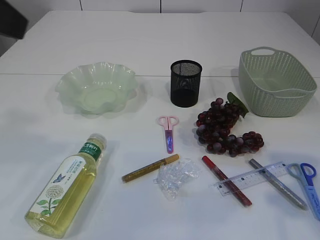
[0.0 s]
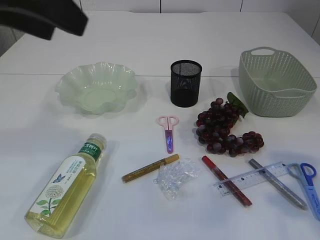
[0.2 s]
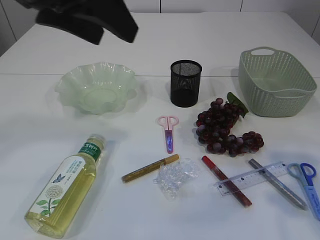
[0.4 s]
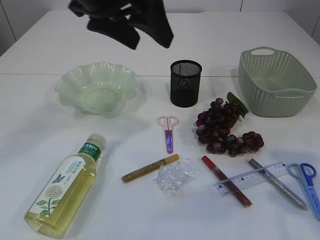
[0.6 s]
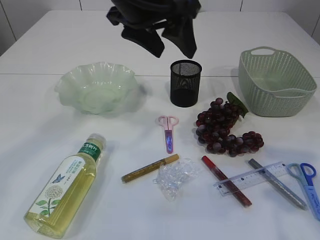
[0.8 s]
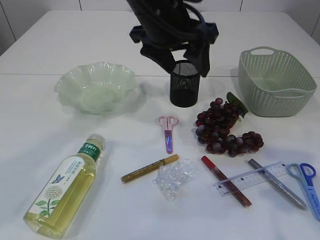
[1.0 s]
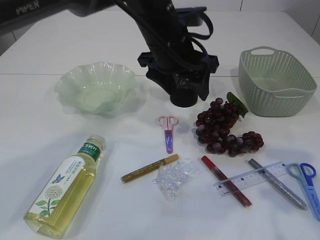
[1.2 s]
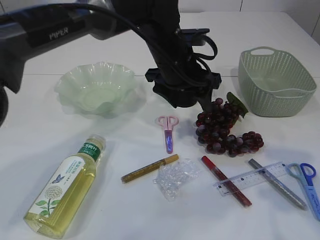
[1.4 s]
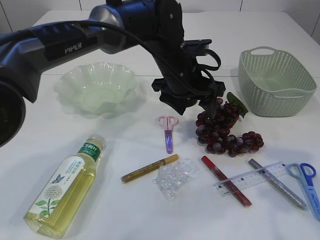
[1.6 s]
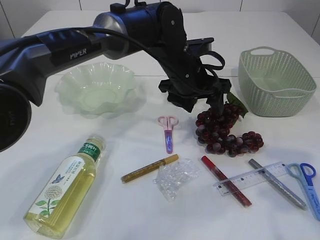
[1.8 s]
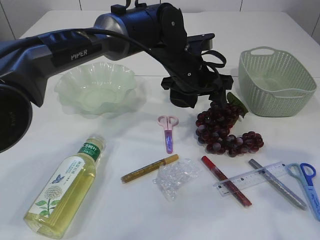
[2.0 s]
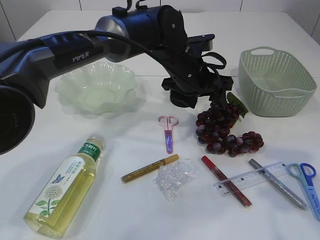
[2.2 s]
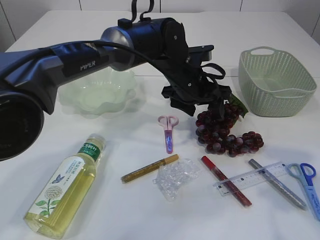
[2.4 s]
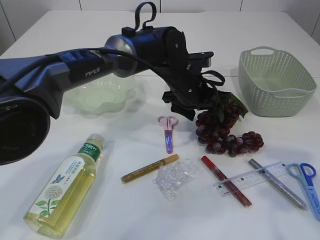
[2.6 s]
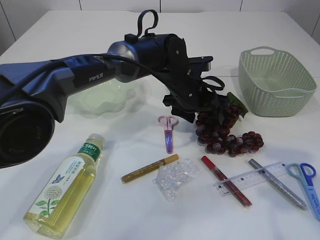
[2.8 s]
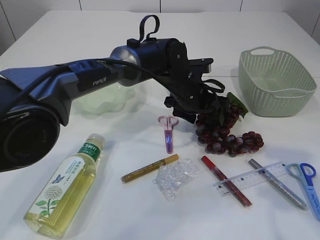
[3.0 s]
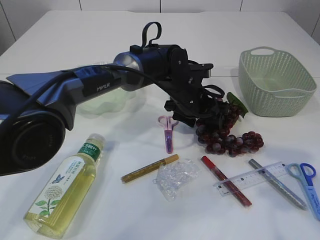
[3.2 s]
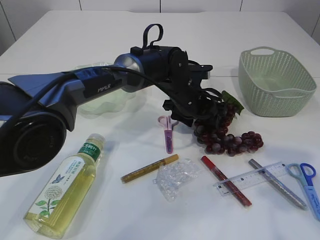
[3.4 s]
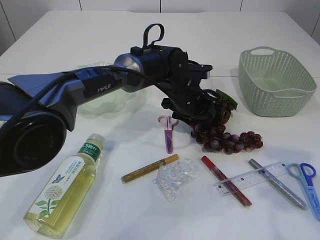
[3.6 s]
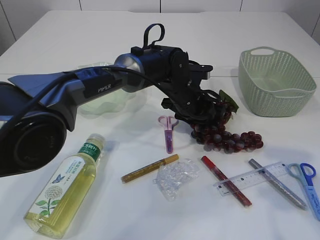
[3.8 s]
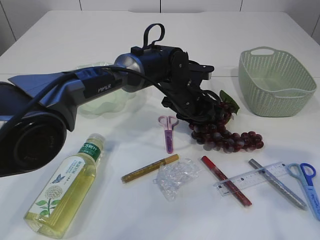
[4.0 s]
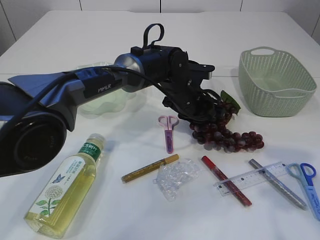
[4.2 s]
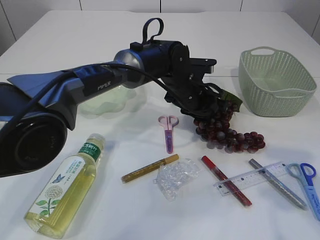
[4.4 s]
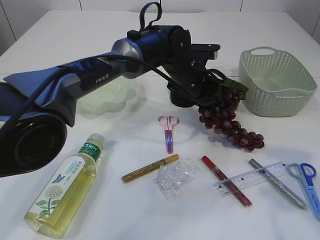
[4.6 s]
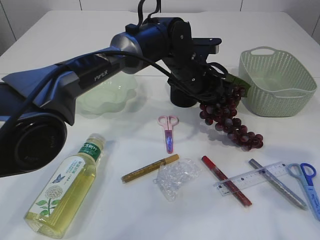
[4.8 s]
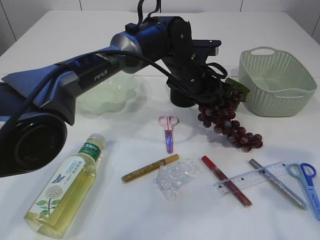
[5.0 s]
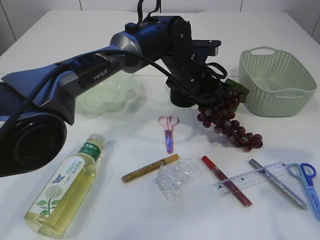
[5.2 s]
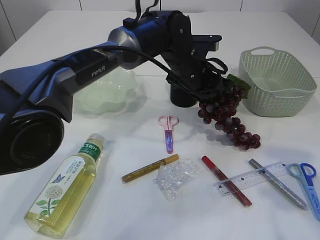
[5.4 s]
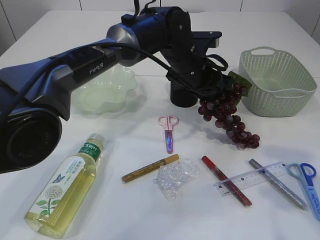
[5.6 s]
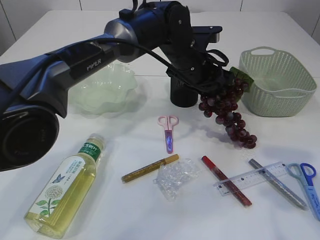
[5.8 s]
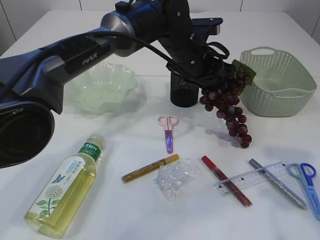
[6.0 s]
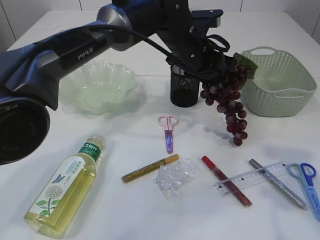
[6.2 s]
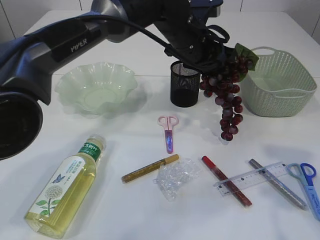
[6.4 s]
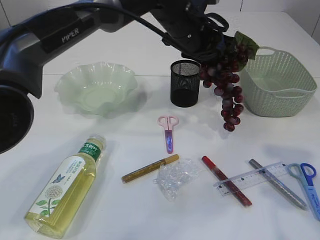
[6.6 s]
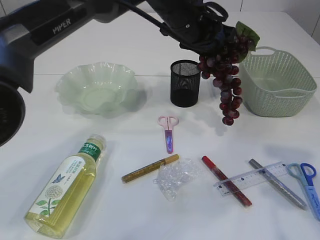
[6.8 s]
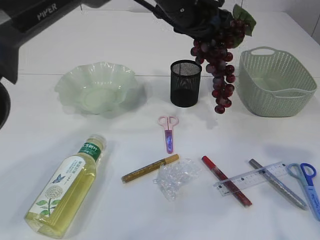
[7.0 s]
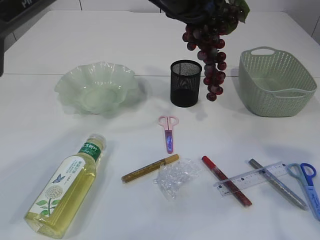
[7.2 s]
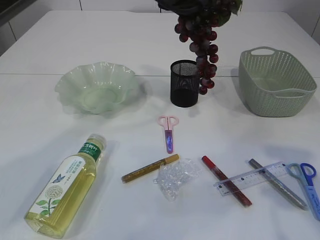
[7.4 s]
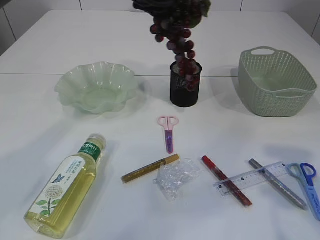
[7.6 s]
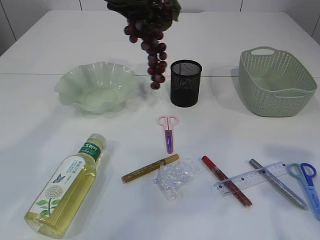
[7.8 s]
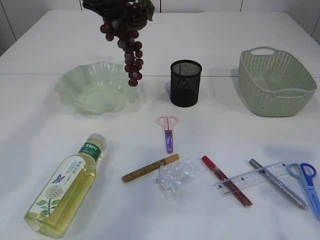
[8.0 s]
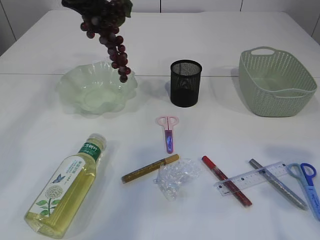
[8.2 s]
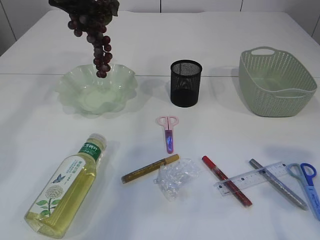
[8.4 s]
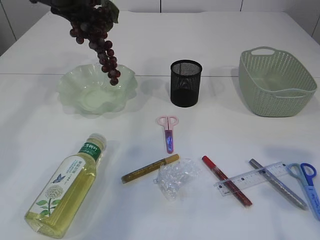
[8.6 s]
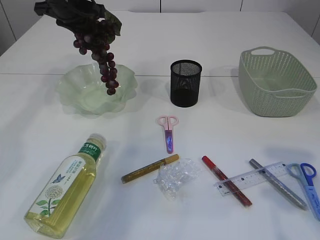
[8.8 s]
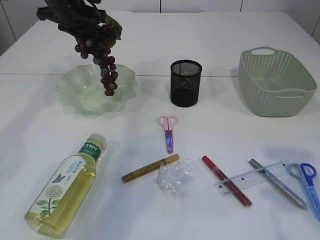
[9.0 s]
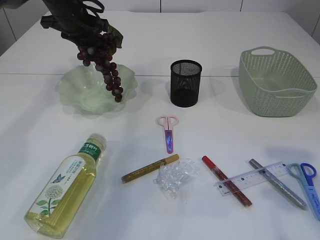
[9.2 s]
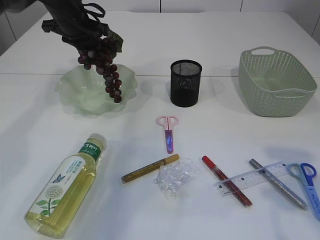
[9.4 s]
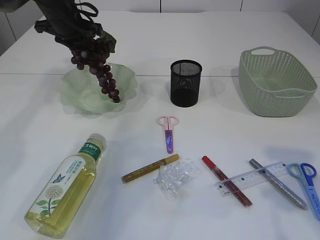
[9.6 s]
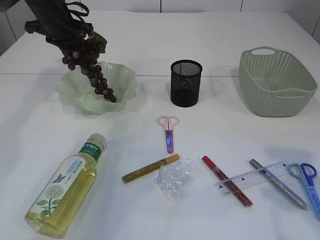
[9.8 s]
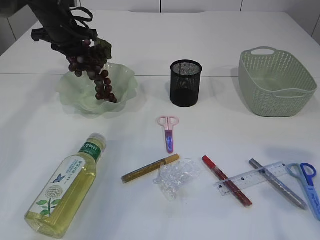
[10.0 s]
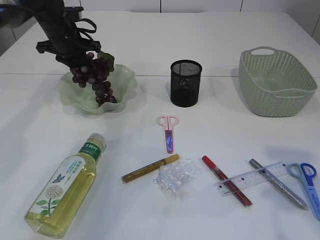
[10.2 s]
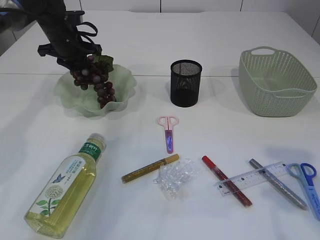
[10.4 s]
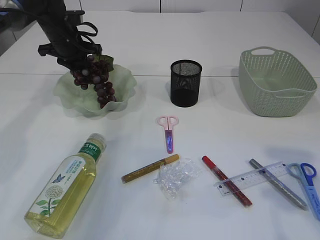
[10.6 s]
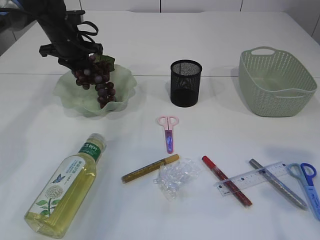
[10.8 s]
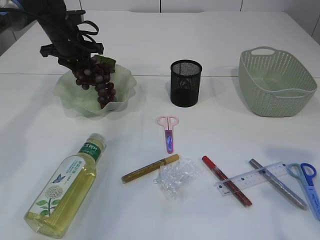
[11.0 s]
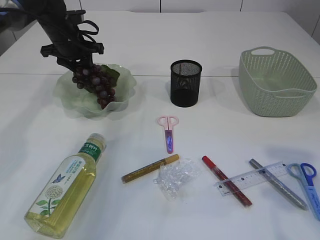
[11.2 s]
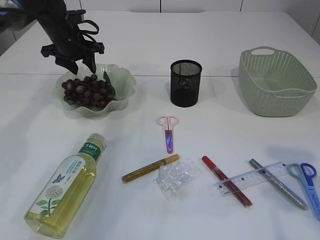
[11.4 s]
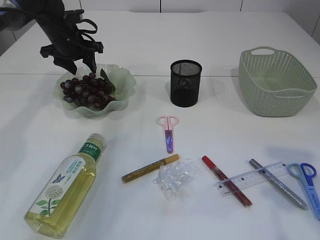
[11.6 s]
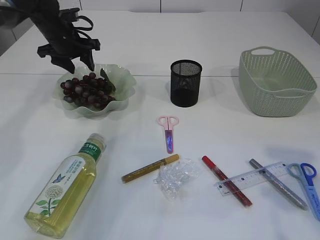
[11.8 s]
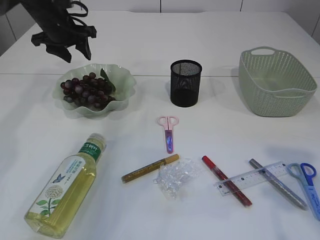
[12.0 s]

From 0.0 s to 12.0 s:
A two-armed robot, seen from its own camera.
Step, from 0.0 s to 6.8 s: Pick up the grapes.
From 0.0 s to 1.6 s: The left gripper moves to the right, downward and forward, roughly 40 cm.
From 1.6 s to 3.0 s: The left gripper travels downward by some 5 cm.
From 3.0 s to 4.4 s: The left gripper closes up.
From 4.4 s to 6.0 s: The left gripper moves upward, some 10 cm.
From 6.0 s to 7.6 s: The left gripper is displaced upward and to the left by approximately 15 cm.
From 7.6 s to 9.0 s: The left gripper shifts approximately 20 cm to the left and forward.
From 9.0 s to 10.4 s: The left gripper moves downward, approximately 10 cm.
From 10.4 s to 12.0 s: The left gripper opens its fingers.

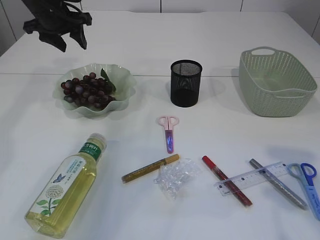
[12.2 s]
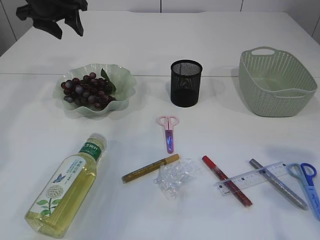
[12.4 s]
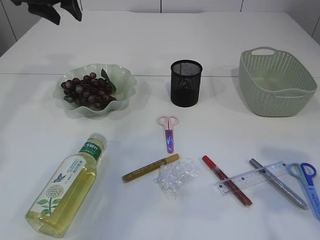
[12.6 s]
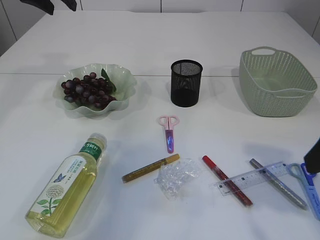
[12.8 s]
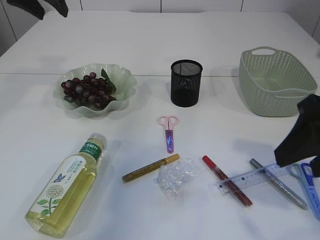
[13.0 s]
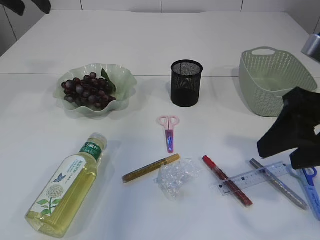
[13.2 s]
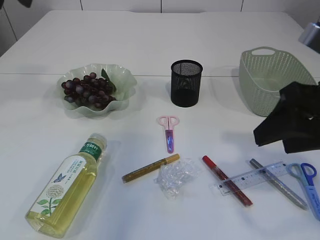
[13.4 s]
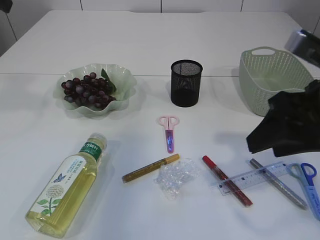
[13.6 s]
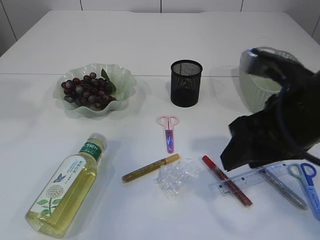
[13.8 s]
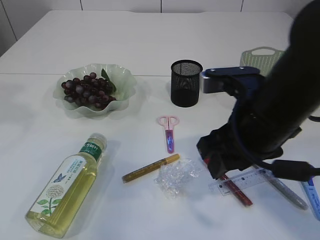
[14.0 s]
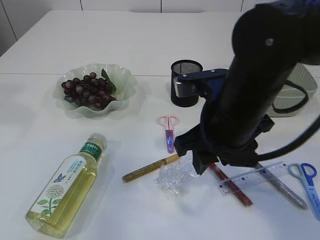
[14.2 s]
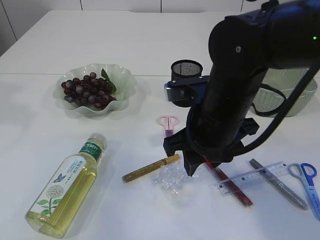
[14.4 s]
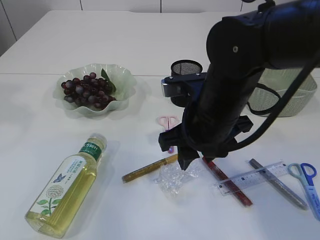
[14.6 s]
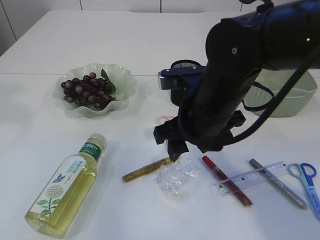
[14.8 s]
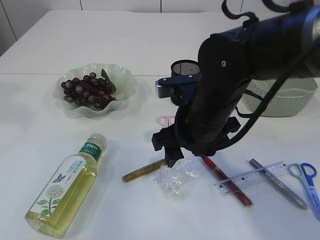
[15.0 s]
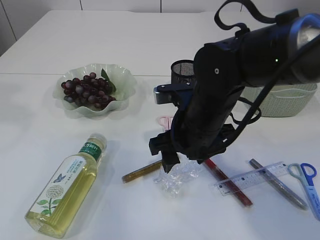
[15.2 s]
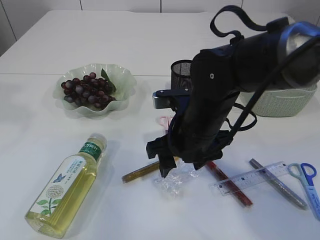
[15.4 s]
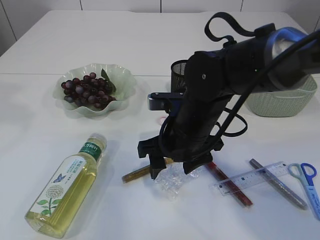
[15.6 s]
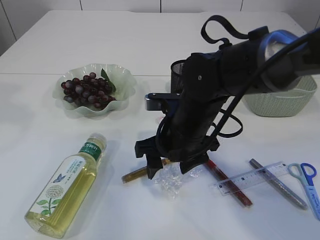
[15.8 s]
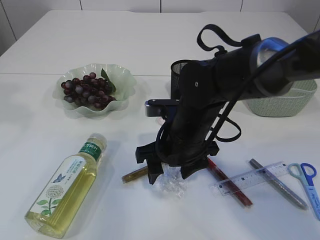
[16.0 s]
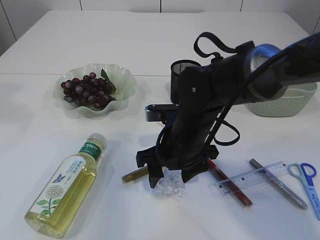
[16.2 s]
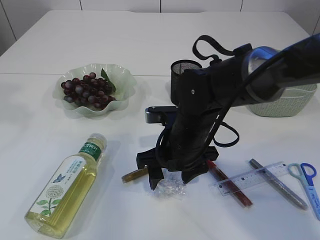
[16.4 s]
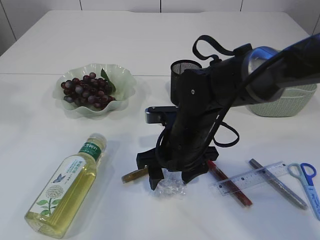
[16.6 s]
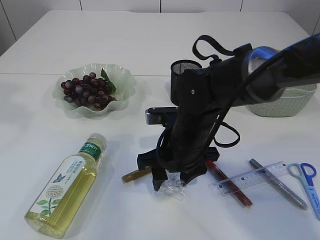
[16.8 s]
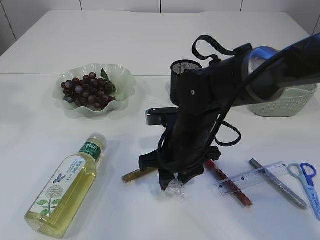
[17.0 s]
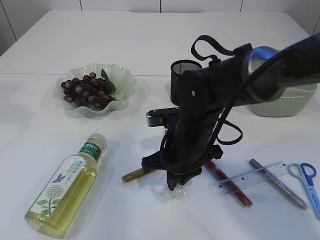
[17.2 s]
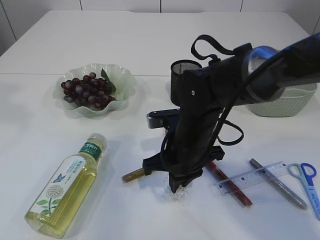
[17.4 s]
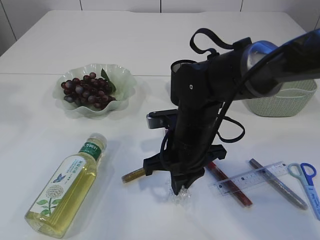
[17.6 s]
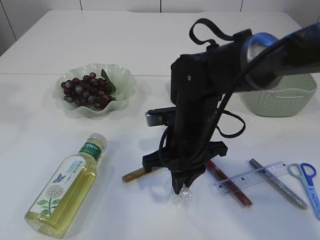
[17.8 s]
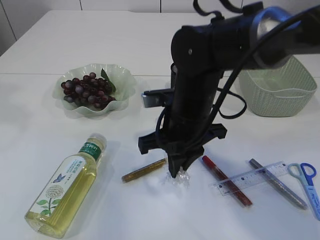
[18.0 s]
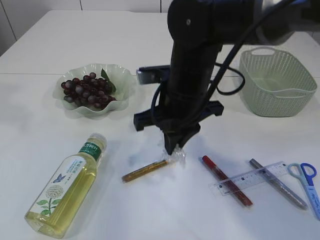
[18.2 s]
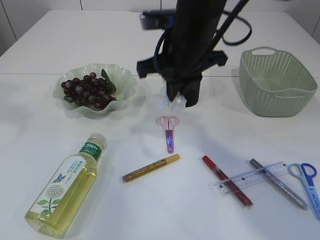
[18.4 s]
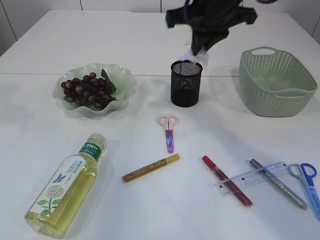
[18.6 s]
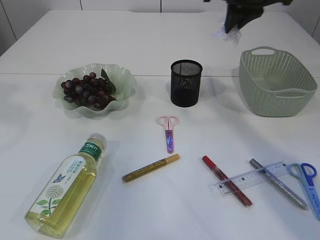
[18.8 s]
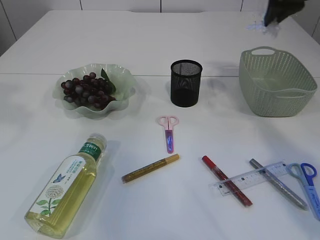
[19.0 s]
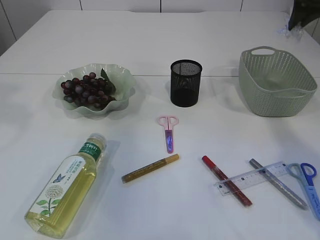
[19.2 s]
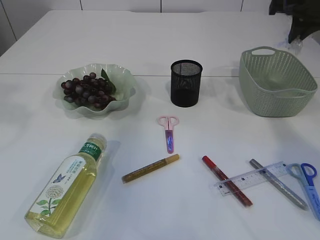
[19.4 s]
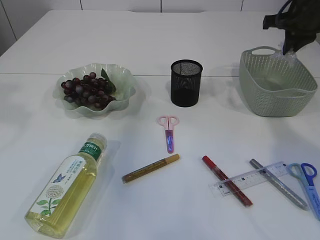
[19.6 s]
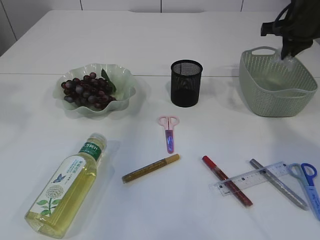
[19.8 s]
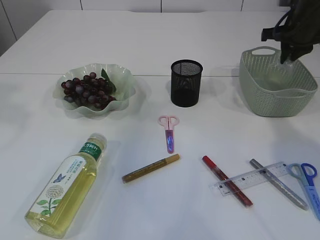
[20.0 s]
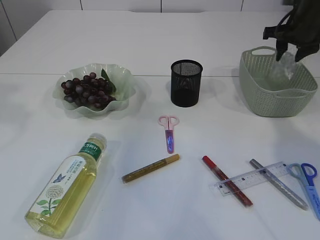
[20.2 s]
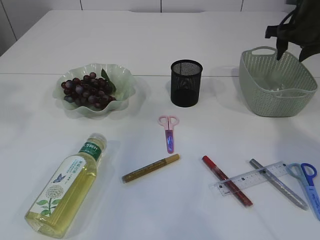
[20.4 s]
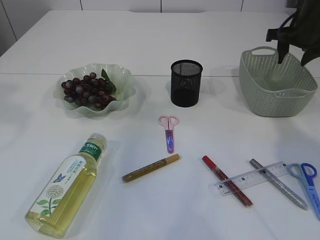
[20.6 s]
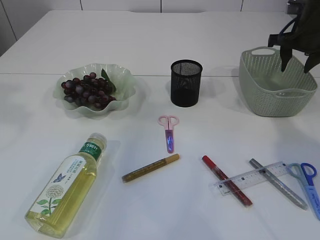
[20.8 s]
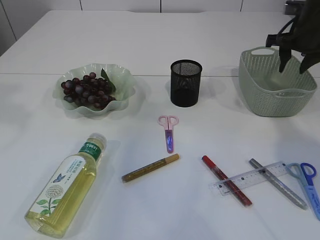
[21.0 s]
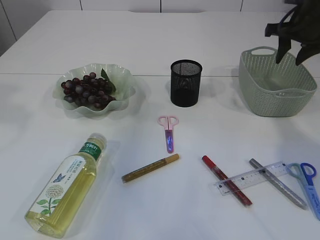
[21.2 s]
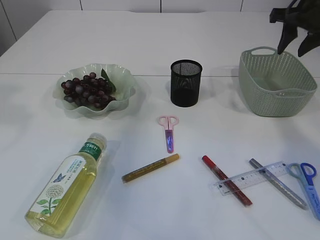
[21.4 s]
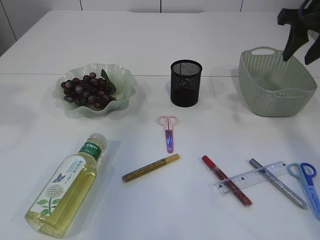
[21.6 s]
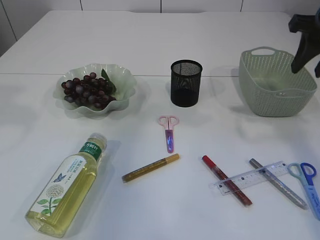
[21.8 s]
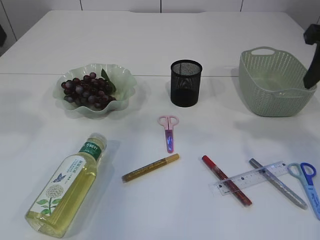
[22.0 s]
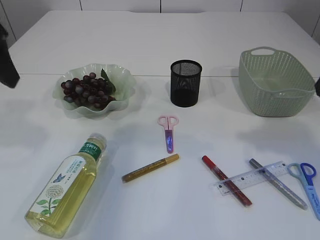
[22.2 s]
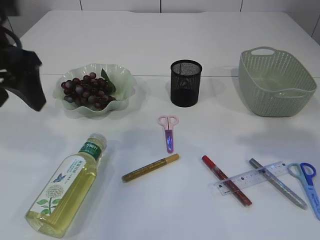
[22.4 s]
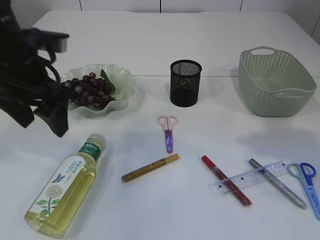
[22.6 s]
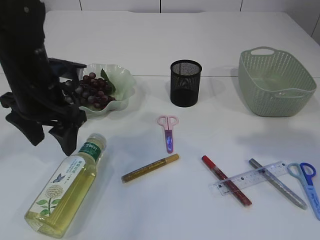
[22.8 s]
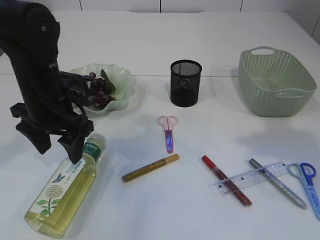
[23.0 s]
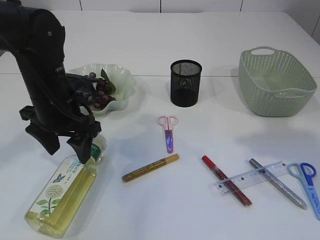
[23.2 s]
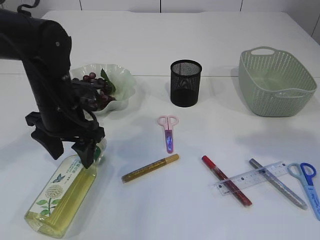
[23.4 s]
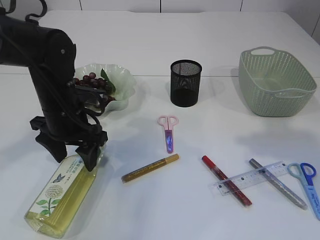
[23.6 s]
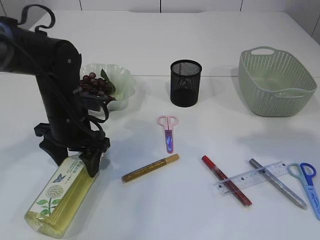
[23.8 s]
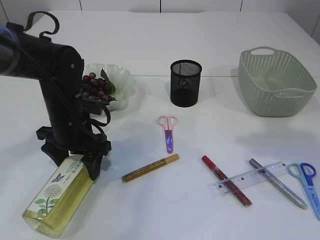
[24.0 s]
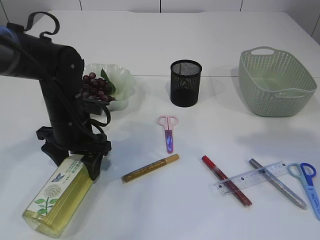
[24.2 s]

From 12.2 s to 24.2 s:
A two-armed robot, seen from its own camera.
Step, from 12.4 s to 18.0 s: Pick up the plastic.
Step, from 18.2 s to 21.6 s: Place the plastic in the basket.
From 12.2 s to 13.8 s: The left gripper is displaced backward and upward by some 25 cm, while the right gripper heads to the left and forward, covering some 10 cm.
From 13.8 s to 15.2 s: The right gripper heads to the left, downward and forward, covering approximately 15 cm.
From 15.2 s to 16.6 s: The right gripper changes place by some 5 cm.
From 16.6 s to 18.2 s: The right gripper is displaced upward by roughly 10 cm, and closes up.
From 18.2 s to 19.8 s: The right gripper goes about 30 cm to the right and forward.
From 19.8 s to 21.2 s: The right gripper opens its fingers.
From 21.2 s to 22.6 s: The right gripper shifts roughly 25 cm backward; the left gripper moves downward and to the right, about 15 cm.
From 22.6 s to 24.2 s: The left gripper moves downward, approximately 15 cm.
